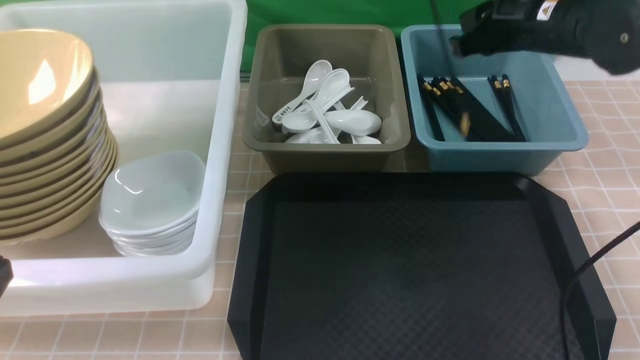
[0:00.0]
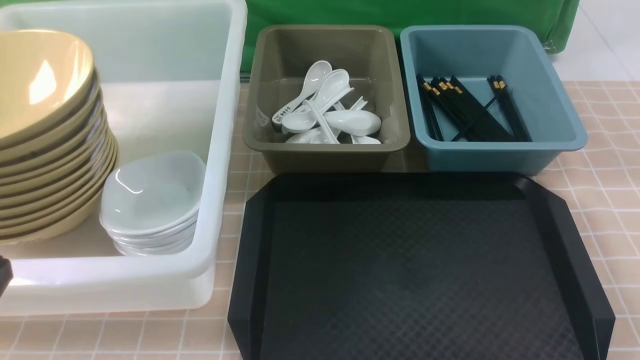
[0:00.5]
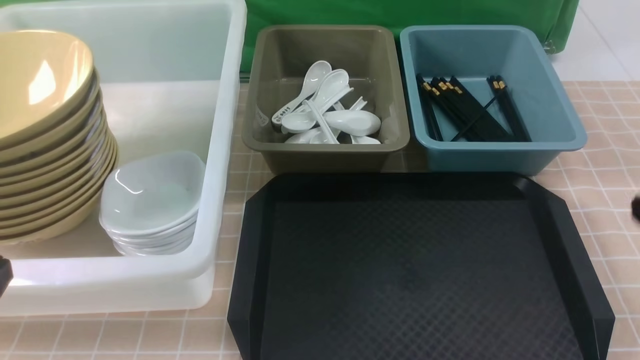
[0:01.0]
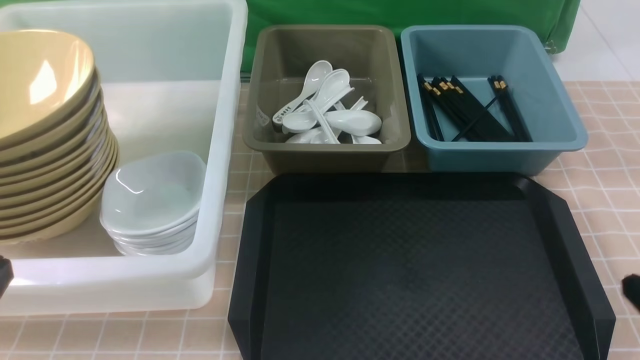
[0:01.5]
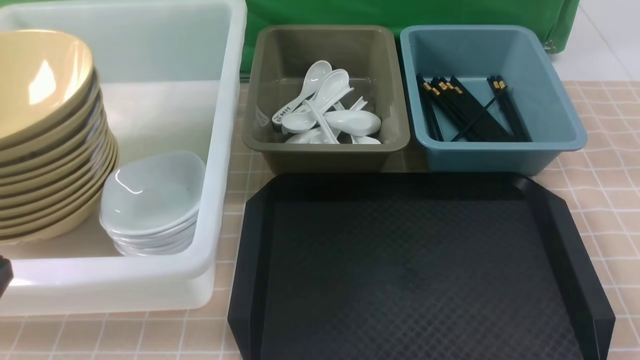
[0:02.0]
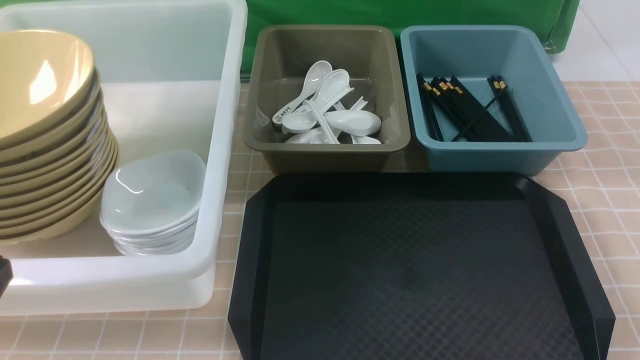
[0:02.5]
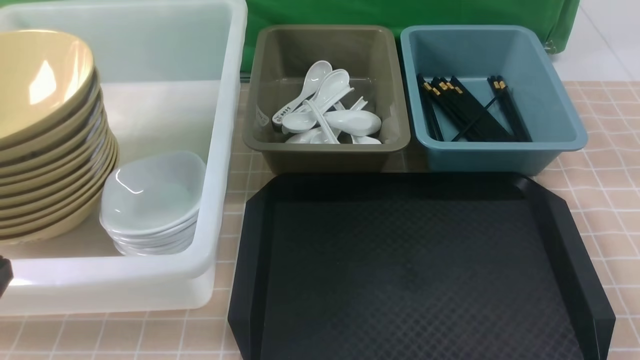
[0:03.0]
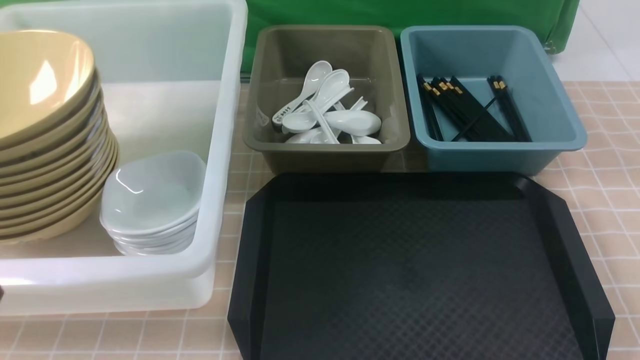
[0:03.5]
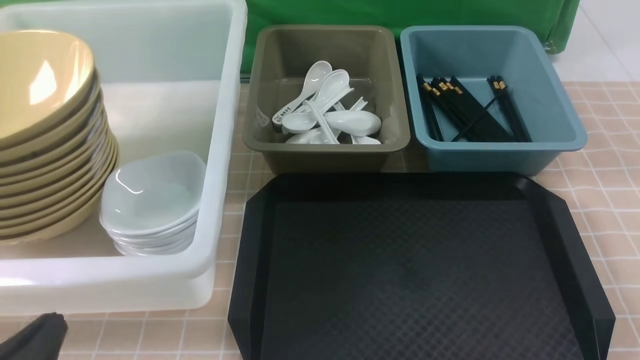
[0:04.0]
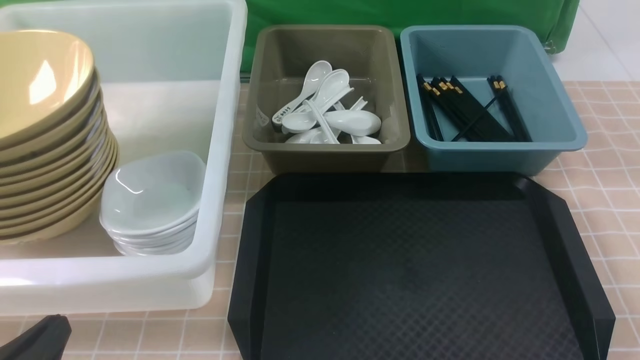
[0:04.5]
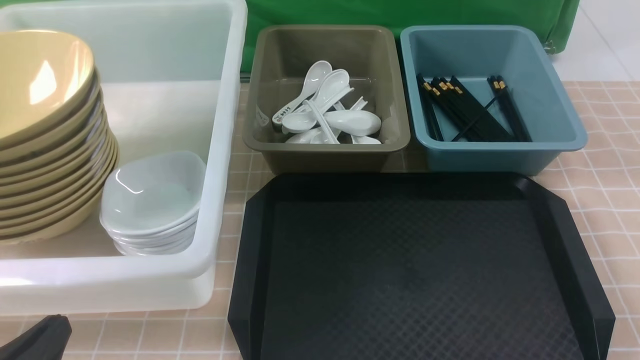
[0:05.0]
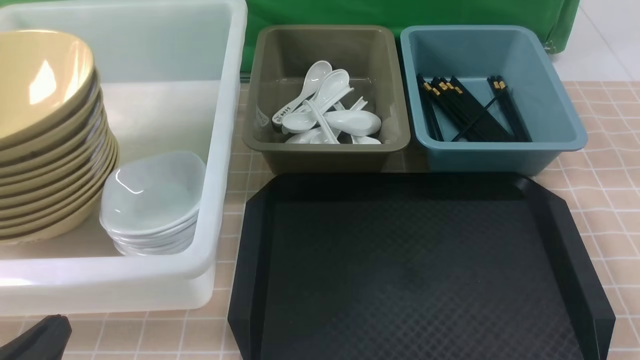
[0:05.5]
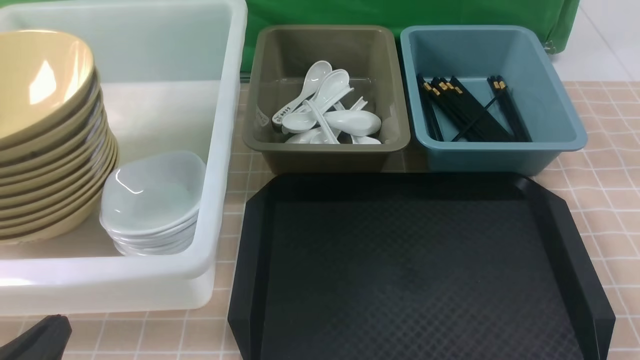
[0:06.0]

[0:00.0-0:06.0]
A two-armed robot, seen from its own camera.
Task of the whole recording: on brown table put chopsticks spoon bowls plates into blue grey white boxes.
0:00.0 to 0:02.0: The right gripper goes some 35 cm backward and downward, and closes up.
0:02.0 to 0:04.0: The left gripper heads downward, covering some 10 cm.
0:04.0 to 0:06.0: Neither gripper changes place.
